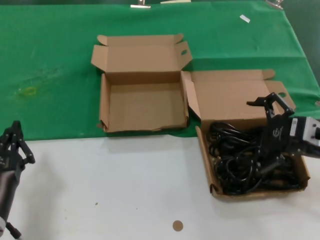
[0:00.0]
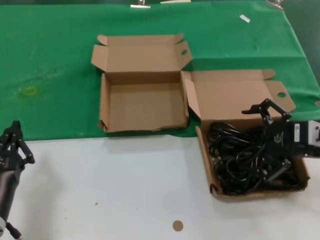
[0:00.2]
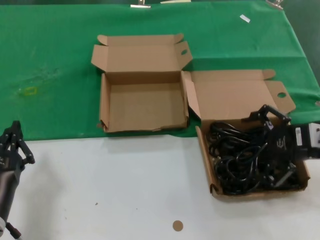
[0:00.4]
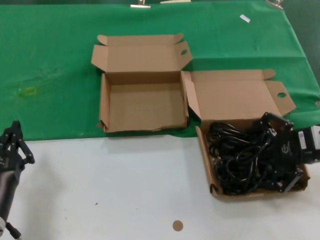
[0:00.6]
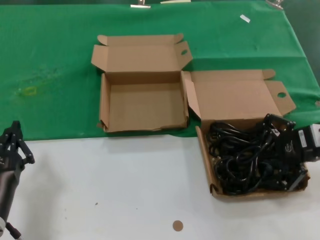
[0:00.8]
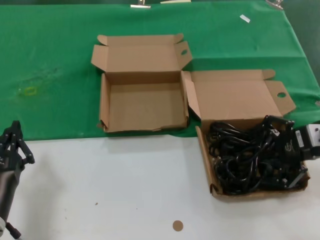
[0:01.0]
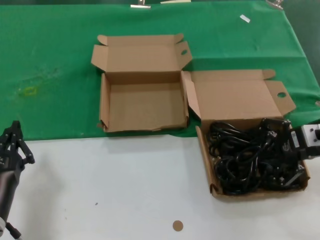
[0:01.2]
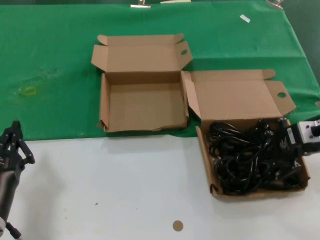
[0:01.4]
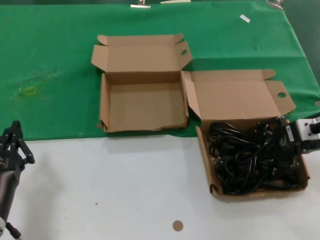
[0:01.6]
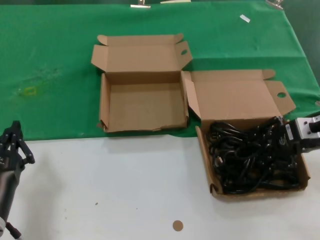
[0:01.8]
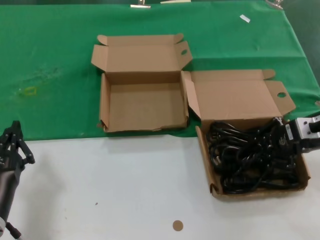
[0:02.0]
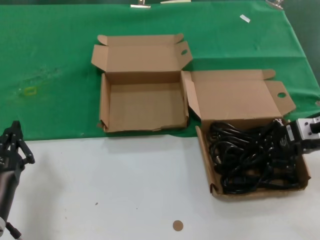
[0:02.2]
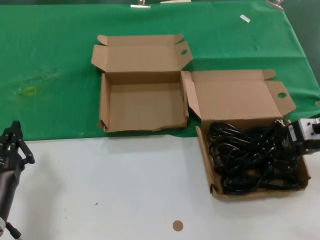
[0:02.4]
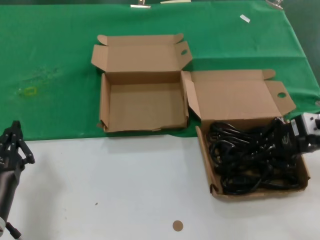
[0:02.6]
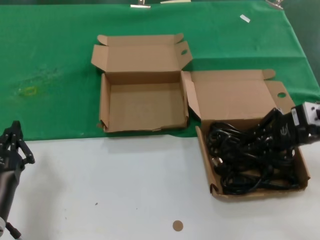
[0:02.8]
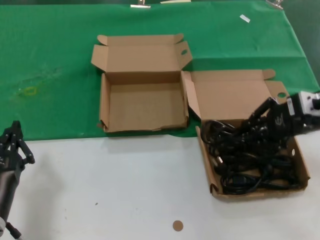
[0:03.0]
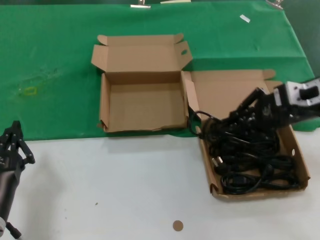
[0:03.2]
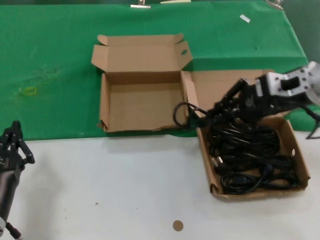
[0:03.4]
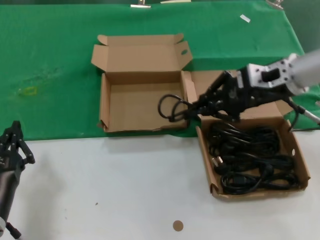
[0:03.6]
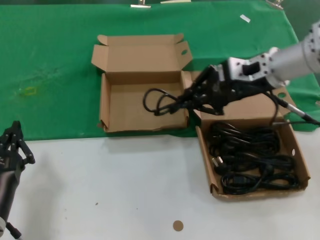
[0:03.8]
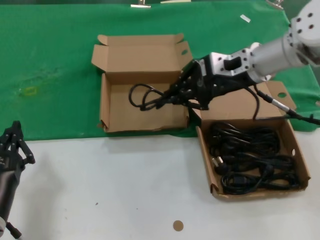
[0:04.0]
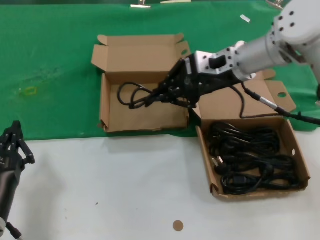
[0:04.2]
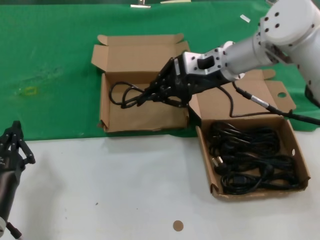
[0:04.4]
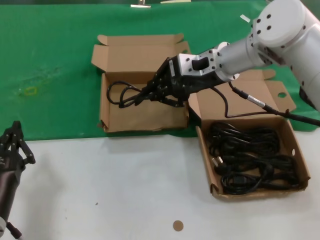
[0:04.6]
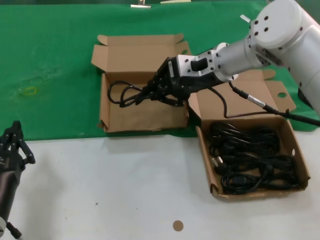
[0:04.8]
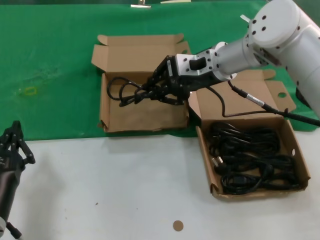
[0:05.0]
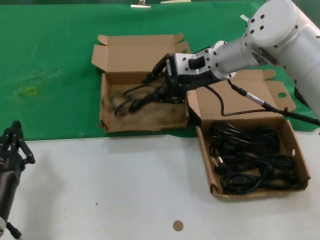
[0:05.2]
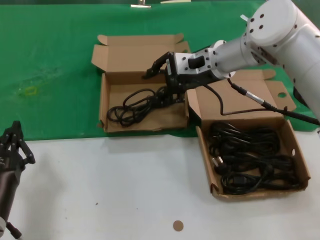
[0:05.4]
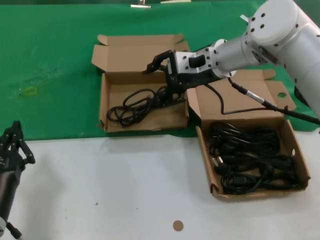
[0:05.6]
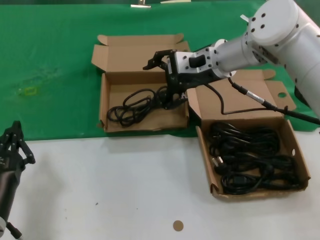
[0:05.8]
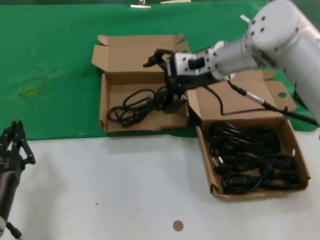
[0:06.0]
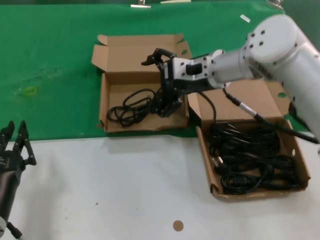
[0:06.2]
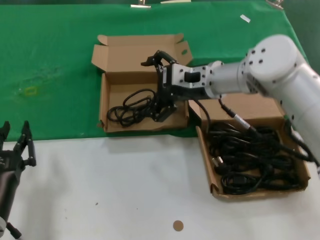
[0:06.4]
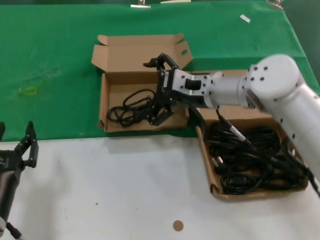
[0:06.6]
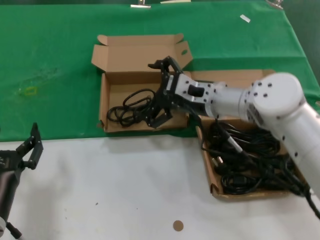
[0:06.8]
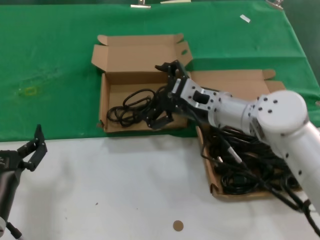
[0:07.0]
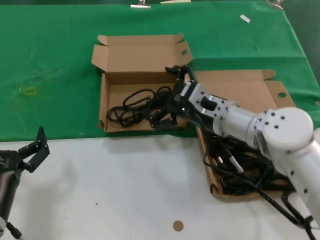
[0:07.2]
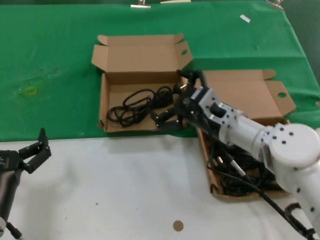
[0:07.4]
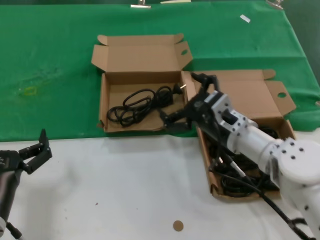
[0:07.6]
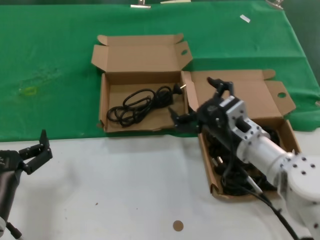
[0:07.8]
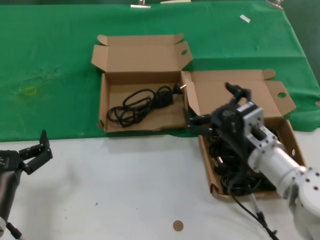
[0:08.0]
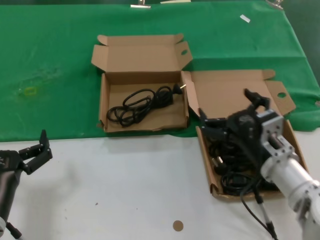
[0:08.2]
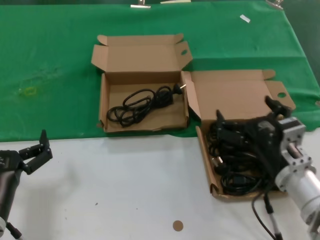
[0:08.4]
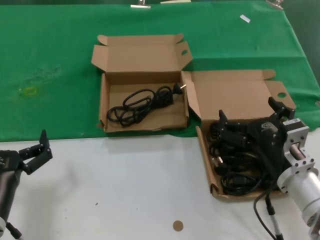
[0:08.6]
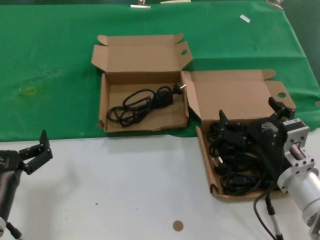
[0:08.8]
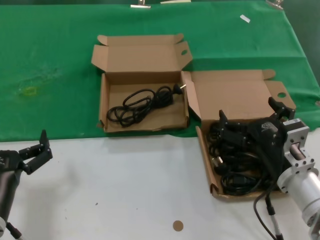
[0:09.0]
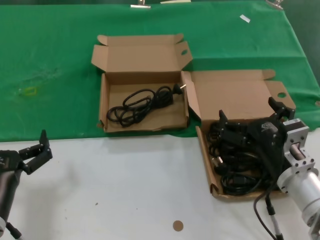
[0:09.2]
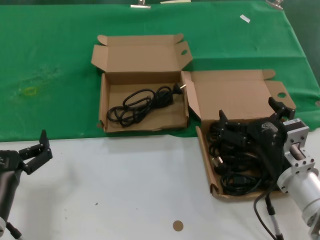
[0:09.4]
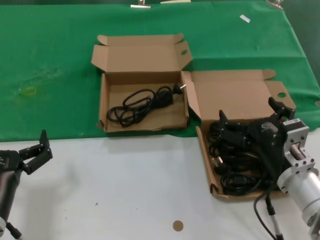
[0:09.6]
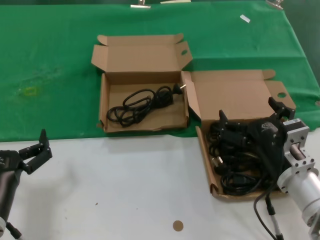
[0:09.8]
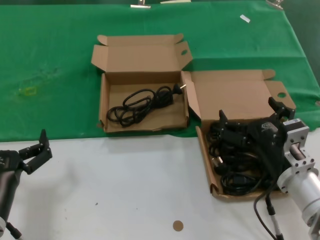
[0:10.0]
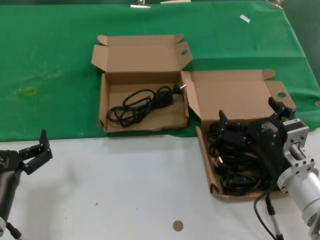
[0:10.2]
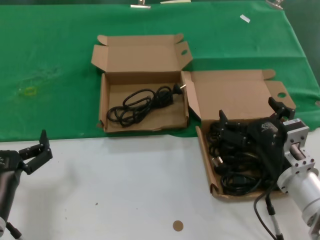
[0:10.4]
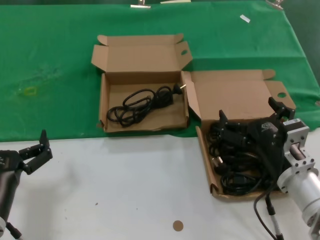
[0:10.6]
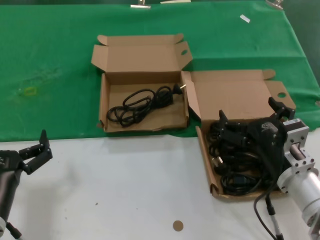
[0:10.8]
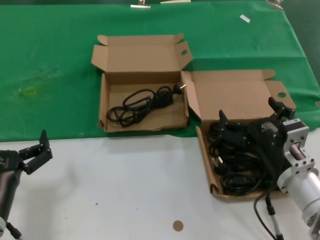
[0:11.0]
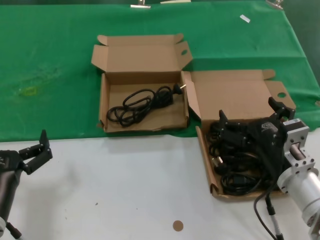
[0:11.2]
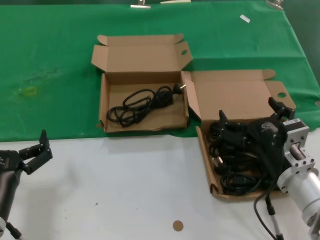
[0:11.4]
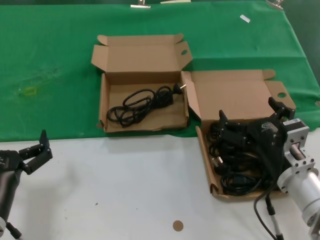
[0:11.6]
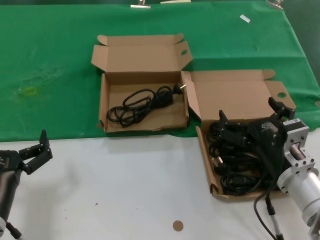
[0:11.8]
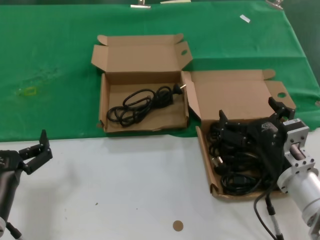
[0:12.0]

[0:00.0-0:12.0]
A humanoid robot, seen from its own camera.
Task of the whole recording: take the parts from the box containing them and put them into an empty box.
Step, 0:00.0 to 0:02.2: Grasp the data cable.
Step, 0:02.4 to 0:05.4: Place the data cable in the another box.
0:00.0 to 0:01.6: The right hand moves forward, about 10 cm.
0:01.6 to 0:03.0: The right hand moves some 5 cm.
0:03.0 to 0:04.4: The right hand heads to the left and forward, covering about 20 cm.
0:04.4 to 0:06.0: The hands stay close to where they were, moving slightly.
0:06.0 to 0:07.6: The right hand shifts some 20 cm downward and backward.
0:07.6 to 0:09.0: The right hand shifts approximately 10 cm backward and to the right.
0:09.0 to 0:12.0: Both hands stay about where they are.

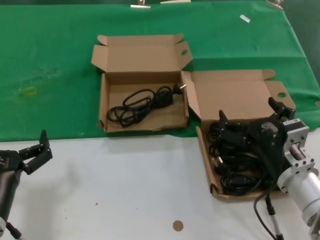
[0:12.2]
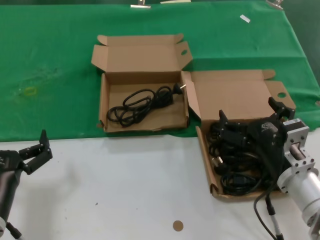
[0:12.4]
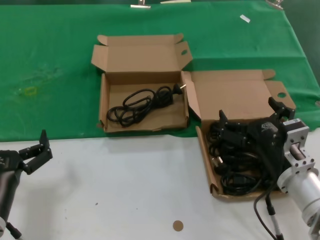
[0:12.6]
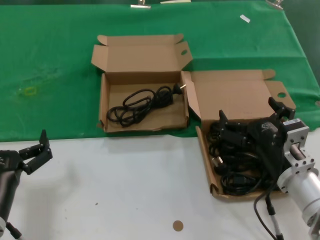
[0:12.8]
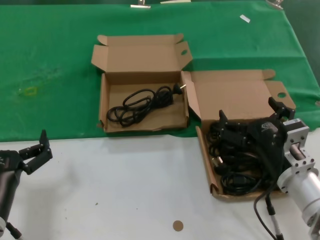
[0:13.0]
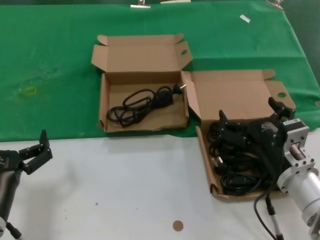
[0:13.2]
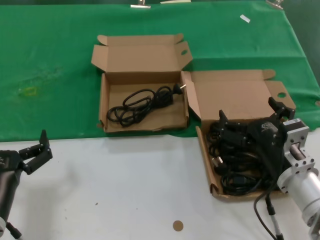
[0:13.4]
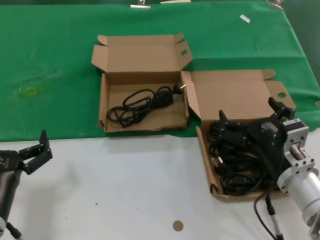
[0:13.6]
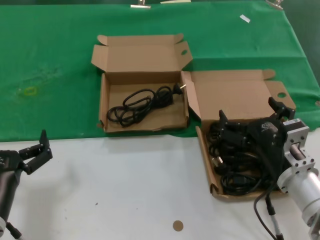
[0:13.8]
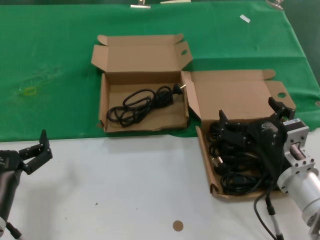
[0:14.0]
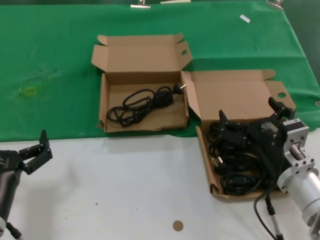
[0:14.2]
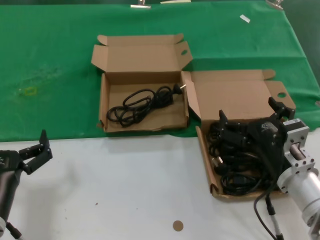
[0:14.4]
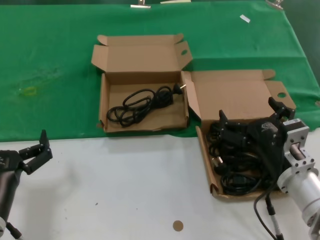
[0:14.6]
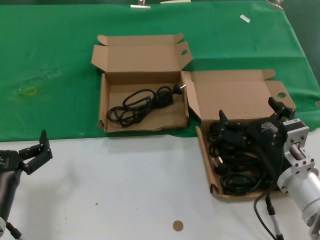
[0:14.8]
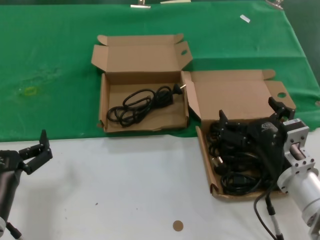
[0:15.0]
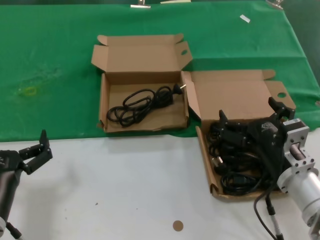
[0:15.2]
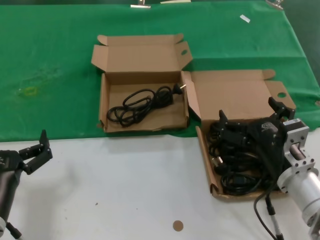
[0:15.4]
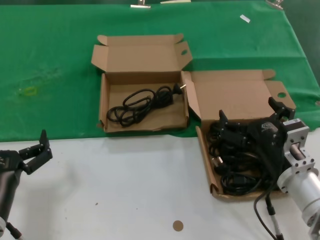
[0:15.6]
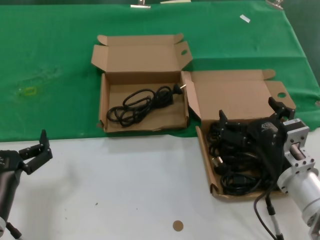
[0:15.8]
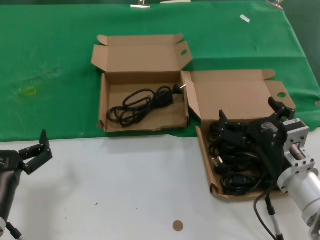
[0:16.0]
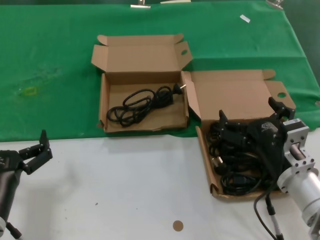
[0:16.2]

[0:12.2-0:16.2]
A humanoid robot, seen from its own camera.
Task of the whole recording: take the parts from the box containing them and put them into an empty box.
0:12.2 to 0:16.2: Both hands stay put.

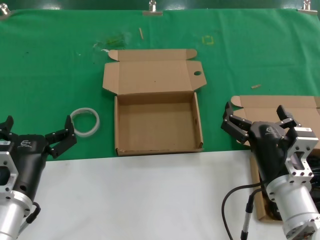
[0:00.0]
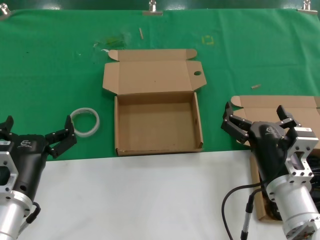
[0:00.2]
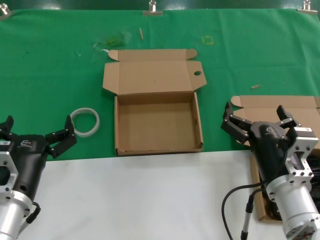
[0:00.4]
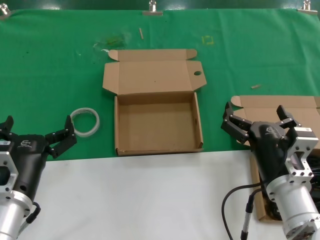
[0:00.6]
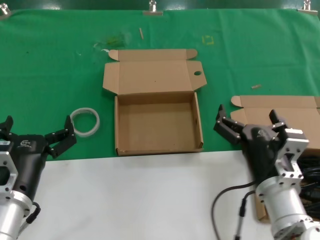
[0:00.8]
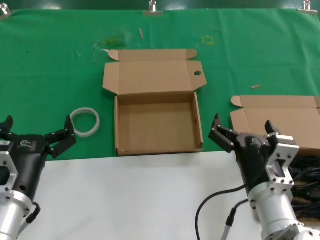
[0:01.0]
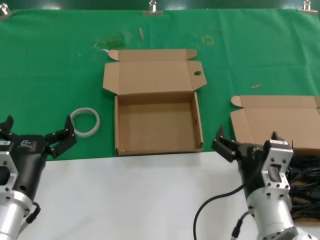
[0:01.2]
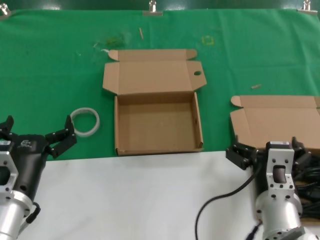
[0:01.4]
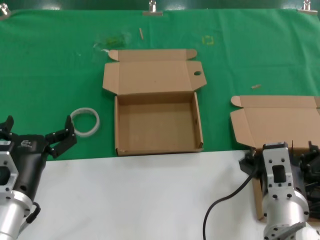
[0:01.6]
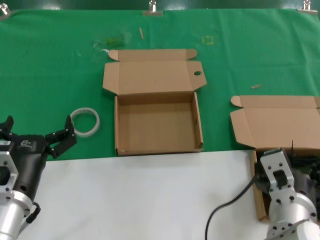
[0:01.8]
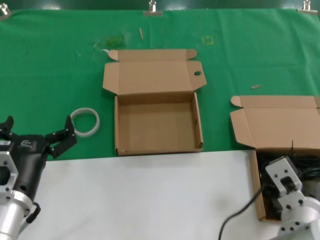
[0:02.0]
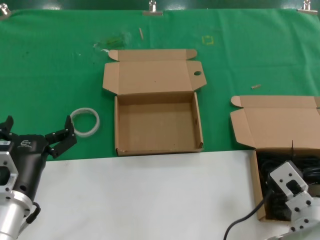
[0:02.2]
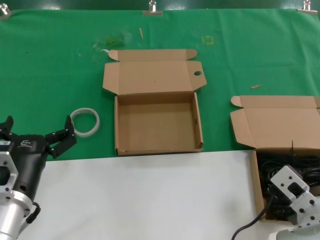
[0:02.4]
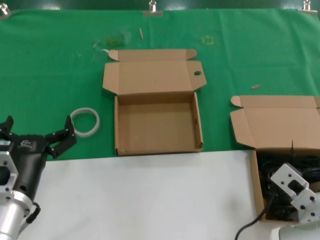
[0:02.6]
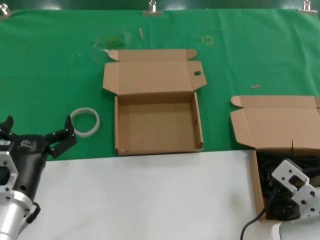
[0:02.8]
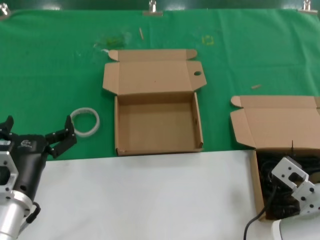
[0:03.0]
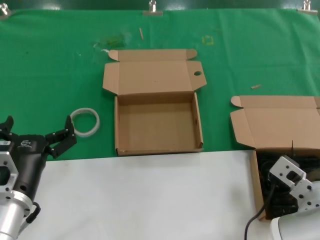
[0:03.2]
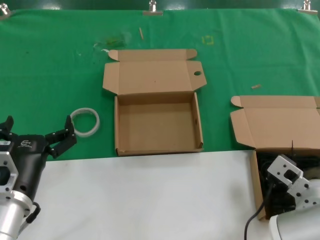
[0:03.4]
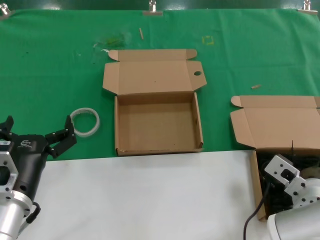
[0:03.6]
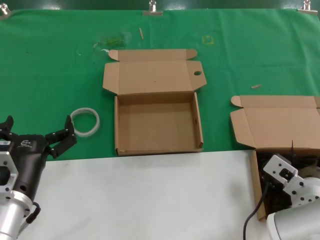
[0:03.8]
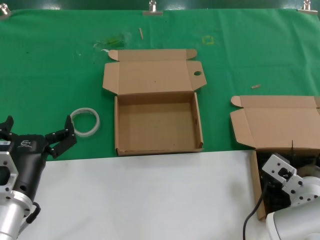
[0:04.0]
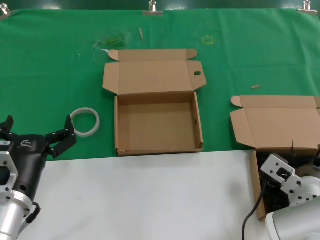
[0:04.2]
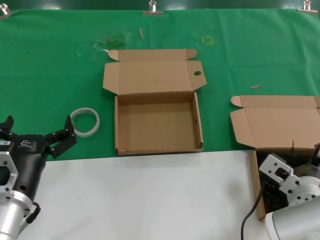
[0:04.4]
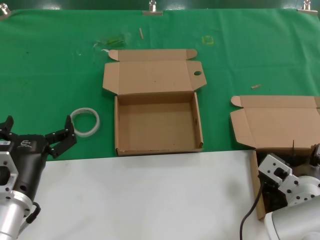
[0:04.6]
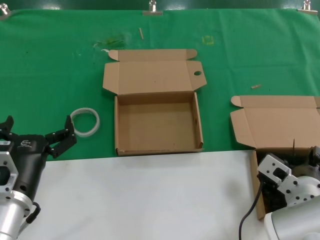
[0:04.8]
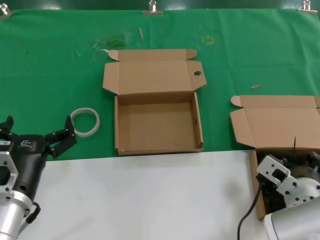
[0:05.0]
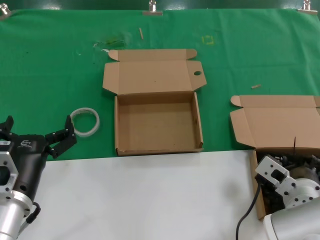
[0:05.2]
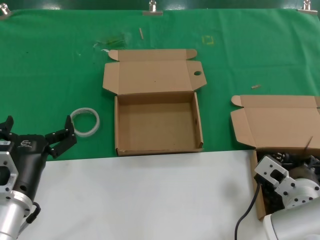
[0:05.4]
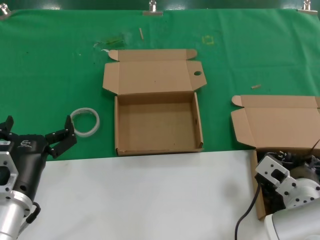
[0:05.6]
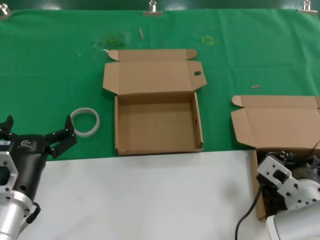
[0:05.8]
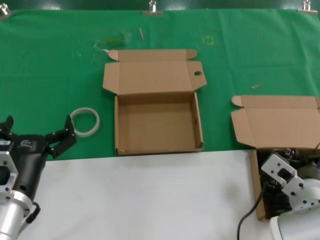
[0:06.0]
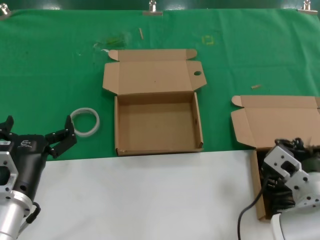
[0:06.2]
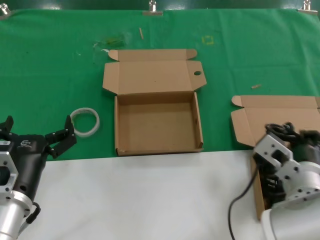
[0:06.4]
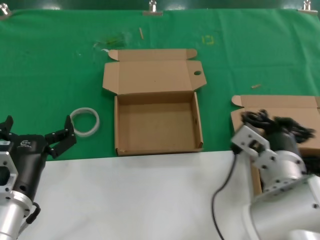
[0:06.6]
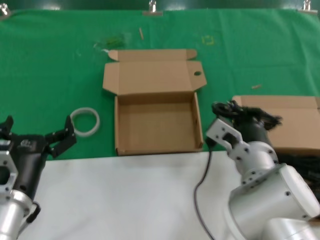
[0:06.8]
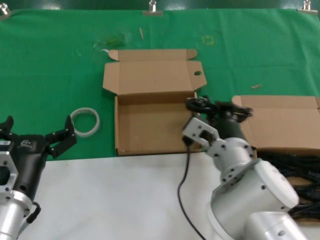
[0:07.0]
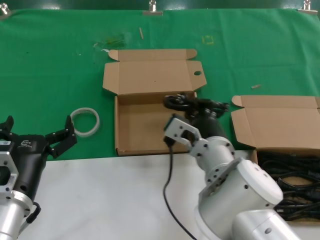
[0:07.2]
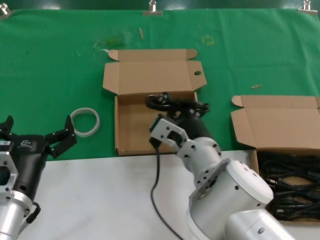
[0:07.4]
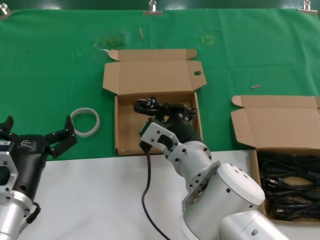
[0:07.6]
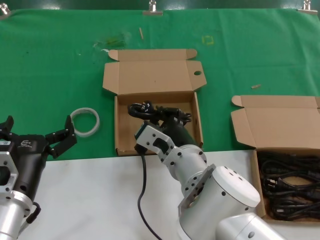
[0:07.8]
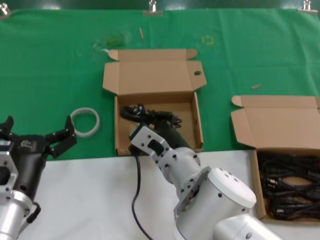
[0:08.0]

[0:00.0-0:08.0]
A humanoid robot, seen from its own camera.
Task of the whole recording: take the parts from the box containing them and put them into an empty box.
Step, 0:00.0 to 0:05.0: Grasp the data cable.
0:00.0 to 0:01.6: The right hand shifts by about 5 cm.
0:01.6 to 0:03.2: The right hand is displaced to the right by roughly 5 cm.
0:03.2 to 0:04.8: The hands move only a little.
0:04.8 to 0:06.4: The right hand is displaced upward by approximately 5 cm.
0:06.4 to 0:08.0: The right hand goes some 15 cm to the left.
